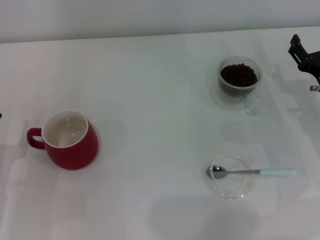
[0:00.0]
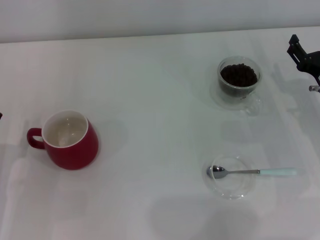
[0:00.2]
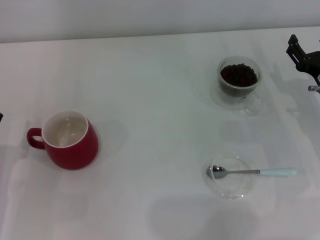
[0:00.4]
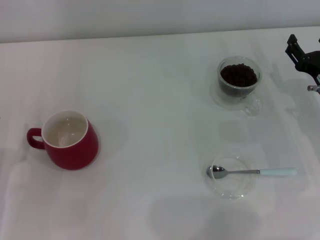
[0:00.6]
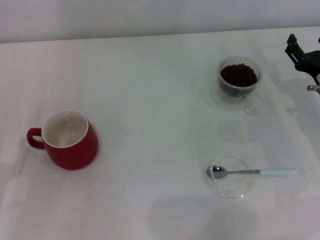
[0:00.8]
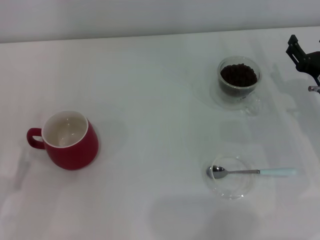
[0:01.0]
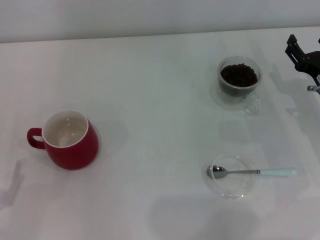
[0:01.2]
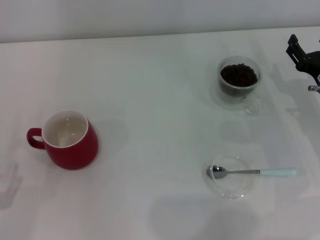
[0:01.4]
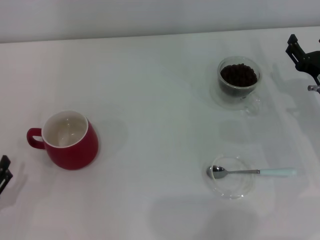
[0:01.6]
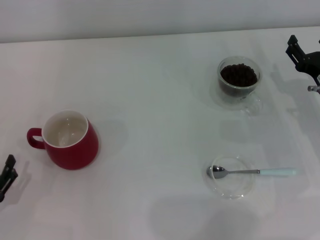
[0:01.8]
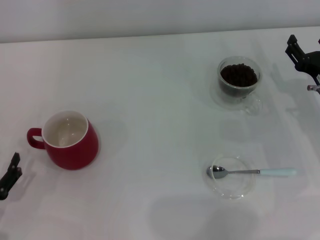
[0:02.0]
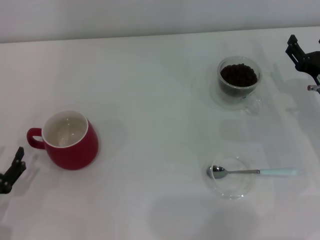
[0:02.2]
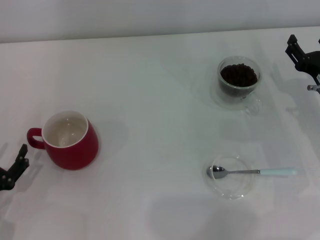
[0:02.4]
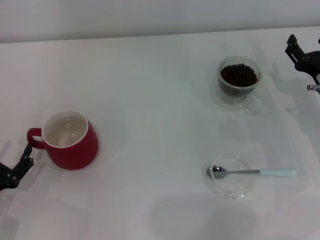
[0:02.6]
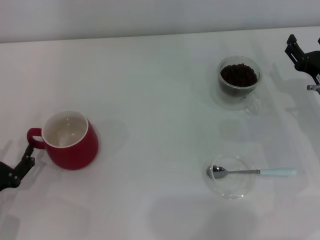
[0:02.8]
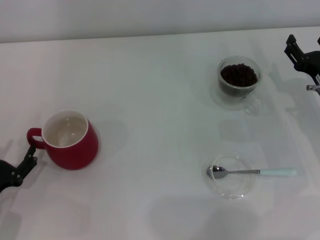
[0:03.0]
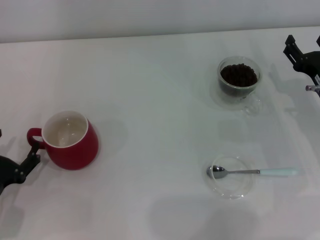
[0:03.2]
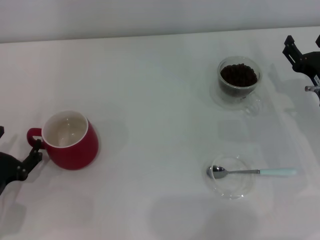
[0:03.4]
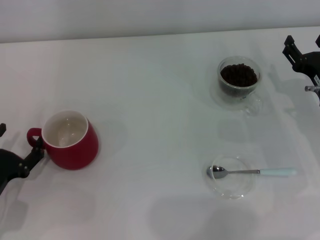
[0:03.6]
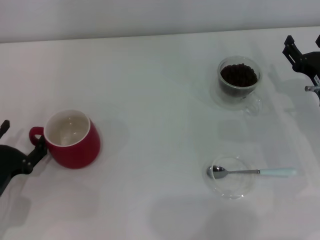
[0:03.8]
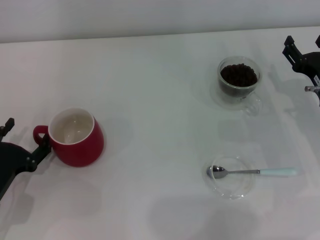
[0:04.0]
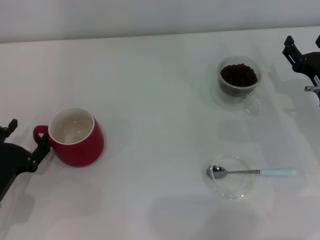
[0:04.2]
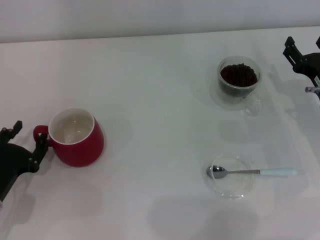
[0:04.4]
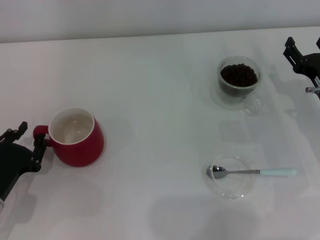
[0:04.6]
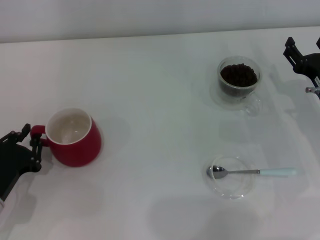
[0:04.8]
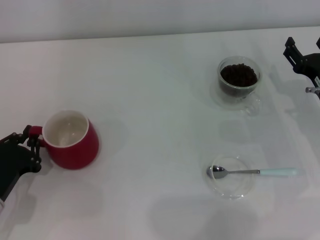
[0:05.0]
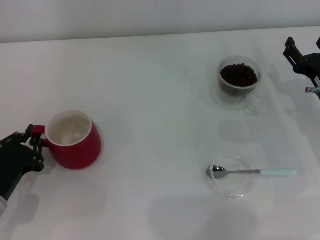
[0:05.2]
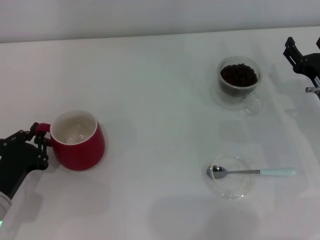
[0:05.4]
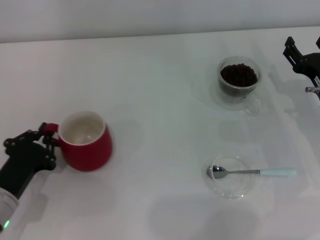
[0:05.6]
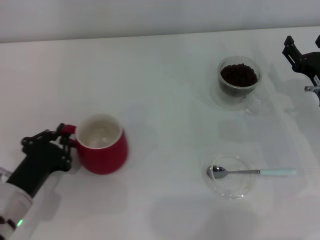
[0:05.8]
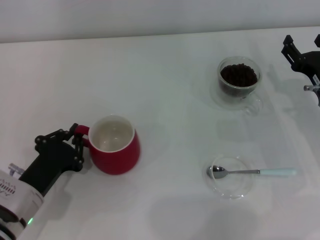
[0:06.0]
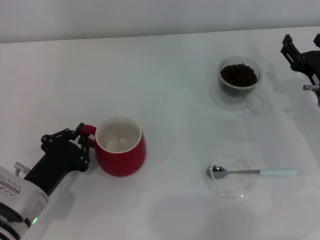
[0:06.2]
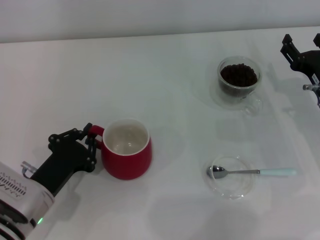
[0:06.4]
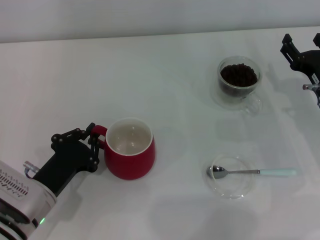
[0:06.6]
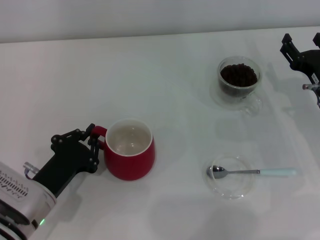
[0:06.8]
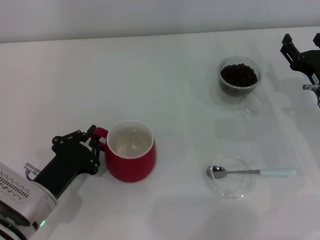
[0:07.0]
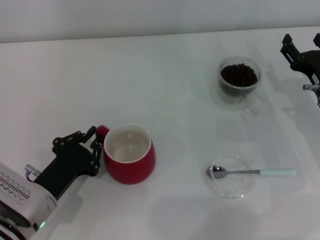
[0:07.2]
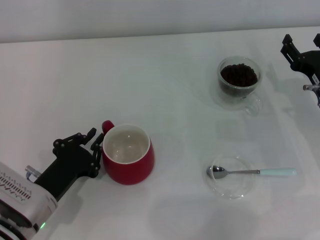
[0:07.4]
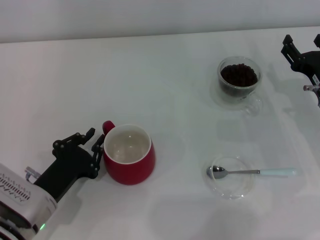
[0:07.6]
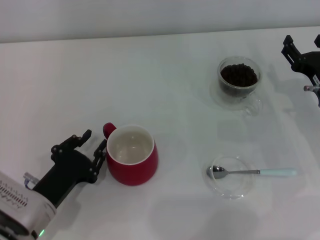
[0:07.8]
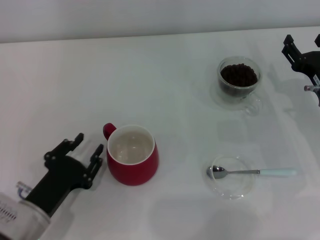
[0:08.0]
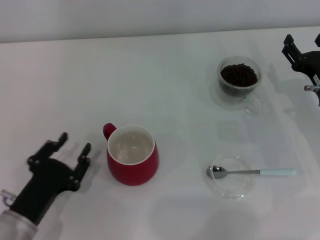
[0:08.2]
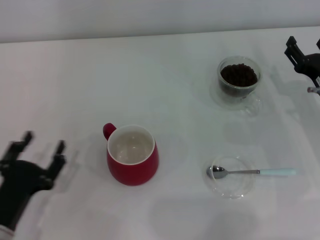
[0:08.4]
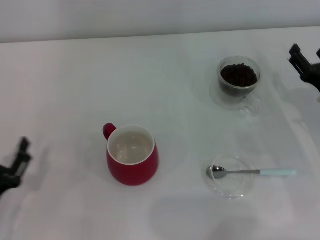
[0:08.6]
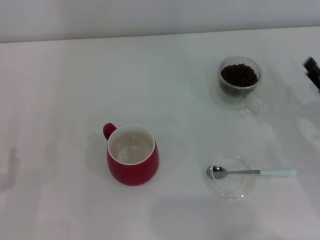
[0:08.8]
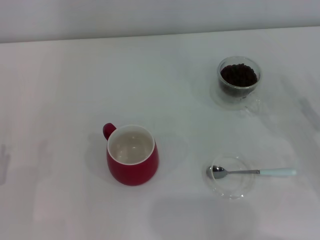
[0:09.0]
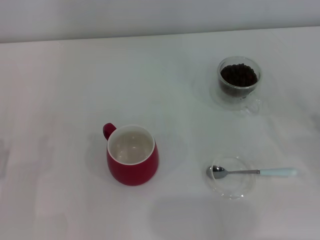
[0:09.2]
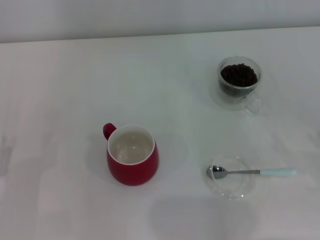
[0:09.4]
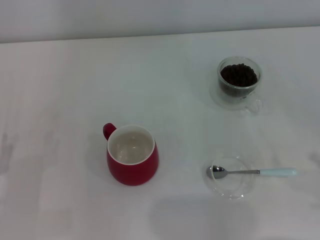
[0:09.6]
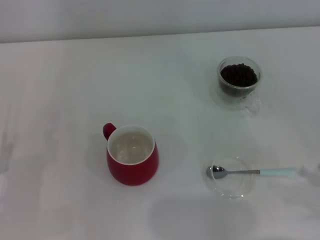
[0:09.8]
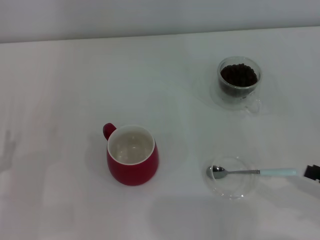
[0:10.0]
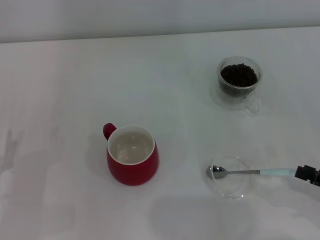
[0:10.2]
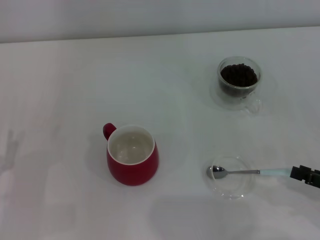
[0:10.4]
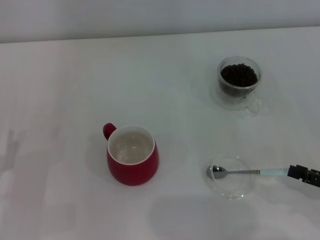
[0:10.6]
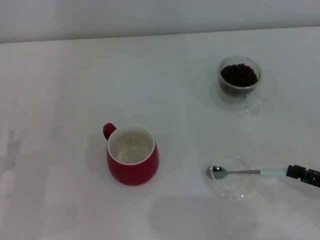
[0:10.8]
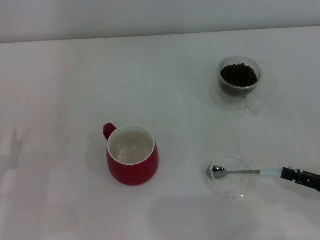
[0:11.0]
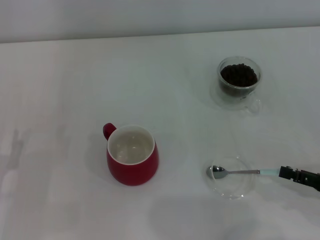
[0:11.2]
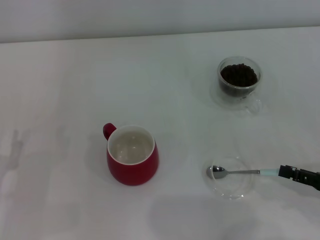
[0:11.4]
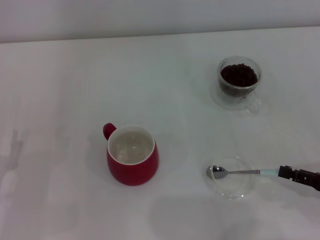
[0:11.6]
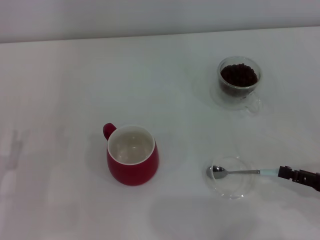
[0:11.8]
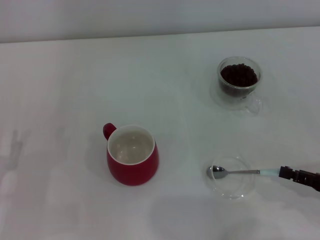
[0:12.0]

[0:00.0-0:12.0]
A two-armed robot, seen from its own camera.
Task of the whole recording: Use a blue spoon to take out the coffee beans from the glass and pour them into the red cup.
Step, 0:00.0 to 0:07.8: Move the cup to the center of view with the left gripper.
0:00.0 to 0:01.6: The left gripper goes some 5 cm backward.
0:01.6 to 0:03.0: There are only small adjustments of the grippers.
0:03.0 to 0:04.4: The grippers stay close to where they were, moving slightly.
0:04.4 to 0:06.0: The left gripper goes about 5 cm to the right, and closes its fingers.
0:06.0 to 0:07.6: The grippers move only a little.
0:07.6 to 0:09.0: The left gripper goes roughly 10 cm to the left and backward, and opens its fingers. Meanwhile the right gripper moves backward and to the right, approximately 10 cm.
0:09.0 to 0:10.4: The right gripper is displaced backward by approximately 5 cm.

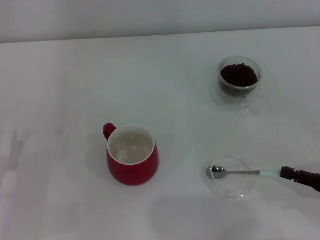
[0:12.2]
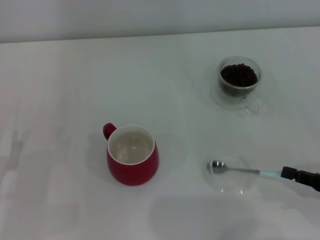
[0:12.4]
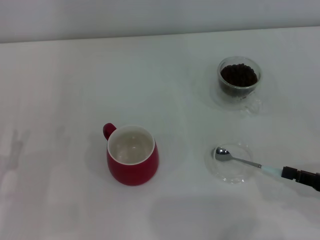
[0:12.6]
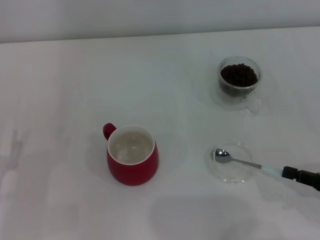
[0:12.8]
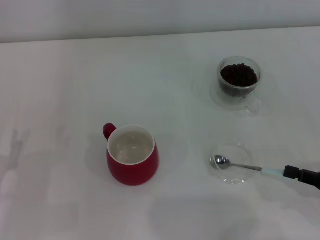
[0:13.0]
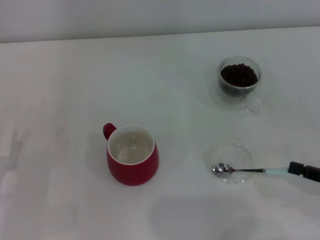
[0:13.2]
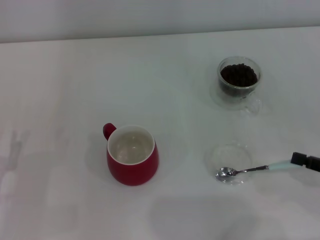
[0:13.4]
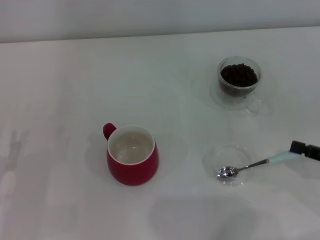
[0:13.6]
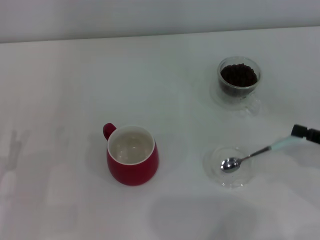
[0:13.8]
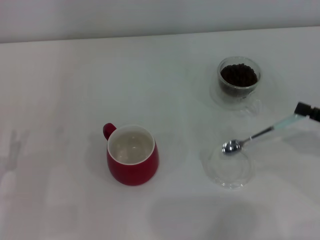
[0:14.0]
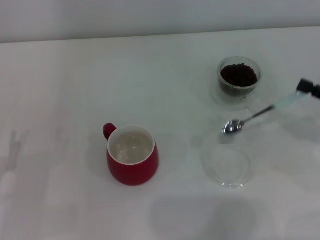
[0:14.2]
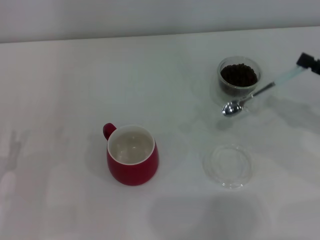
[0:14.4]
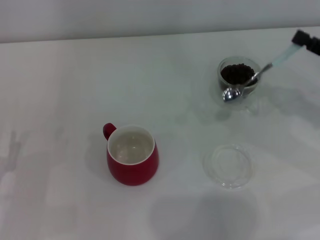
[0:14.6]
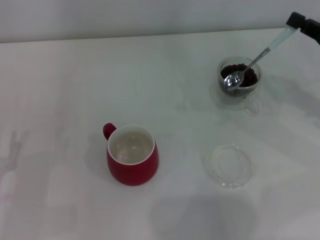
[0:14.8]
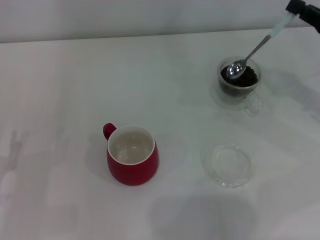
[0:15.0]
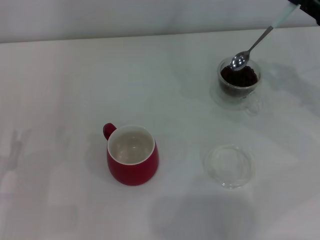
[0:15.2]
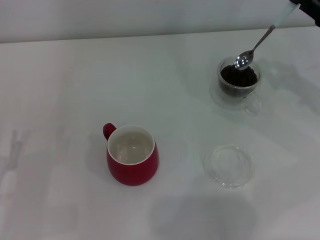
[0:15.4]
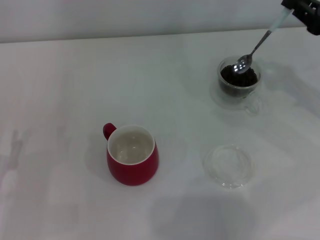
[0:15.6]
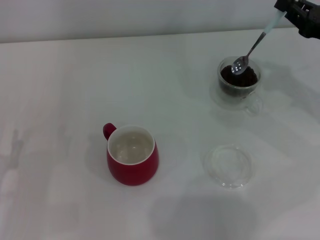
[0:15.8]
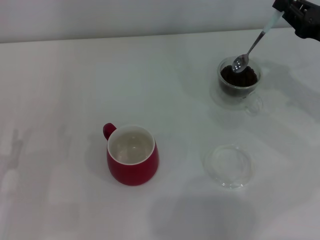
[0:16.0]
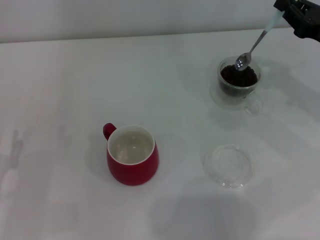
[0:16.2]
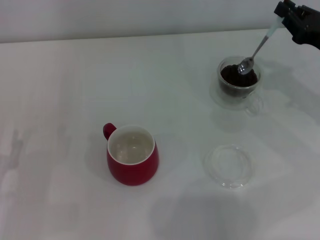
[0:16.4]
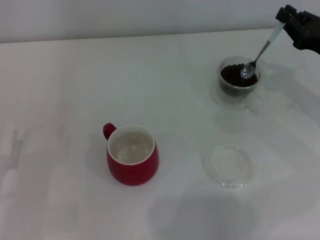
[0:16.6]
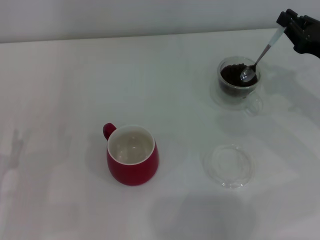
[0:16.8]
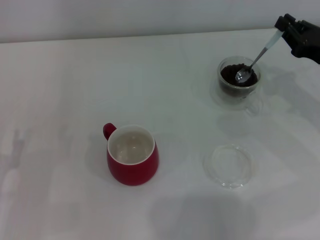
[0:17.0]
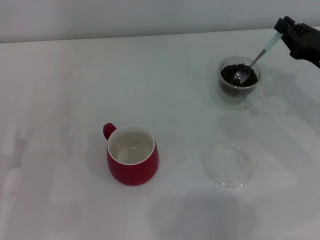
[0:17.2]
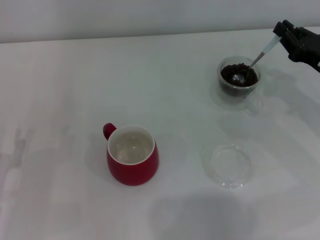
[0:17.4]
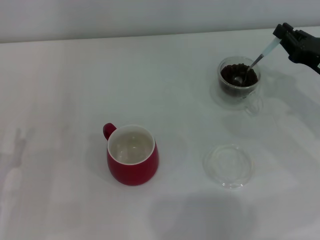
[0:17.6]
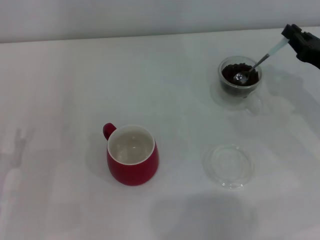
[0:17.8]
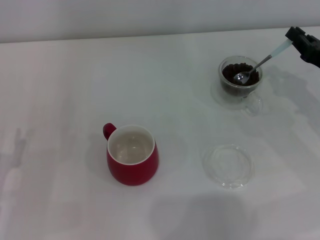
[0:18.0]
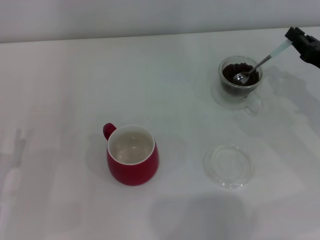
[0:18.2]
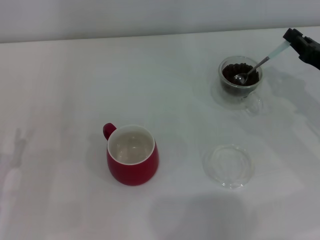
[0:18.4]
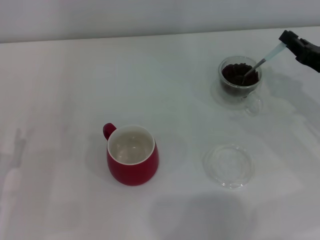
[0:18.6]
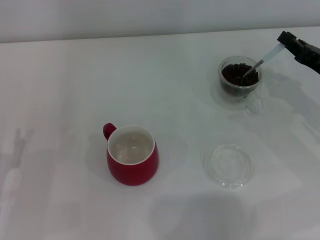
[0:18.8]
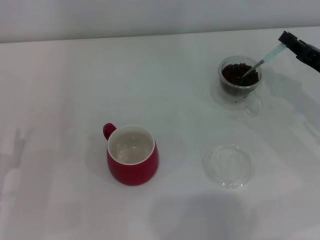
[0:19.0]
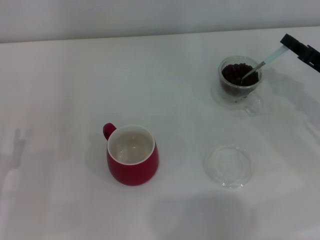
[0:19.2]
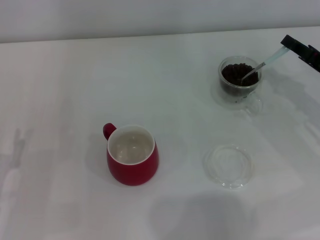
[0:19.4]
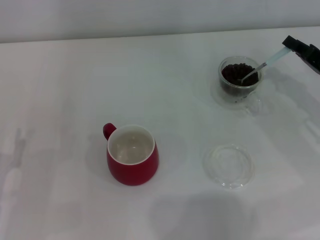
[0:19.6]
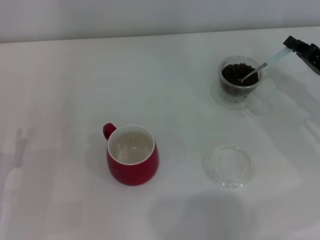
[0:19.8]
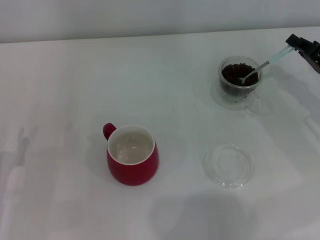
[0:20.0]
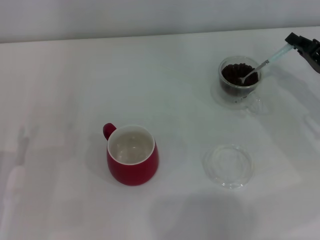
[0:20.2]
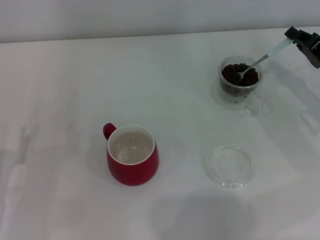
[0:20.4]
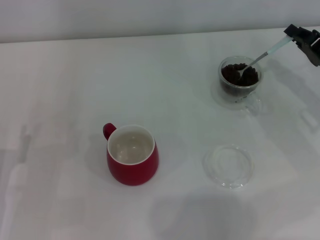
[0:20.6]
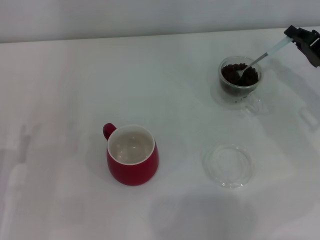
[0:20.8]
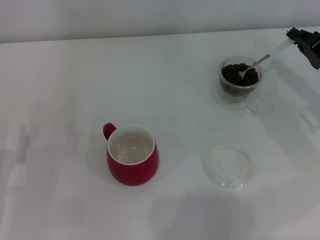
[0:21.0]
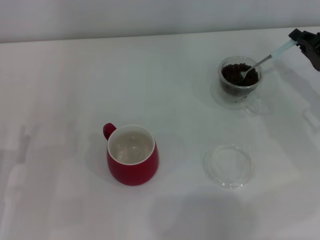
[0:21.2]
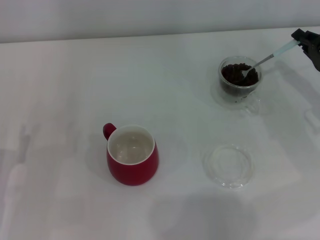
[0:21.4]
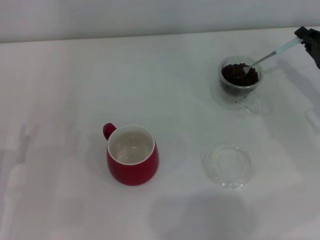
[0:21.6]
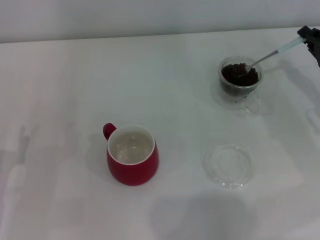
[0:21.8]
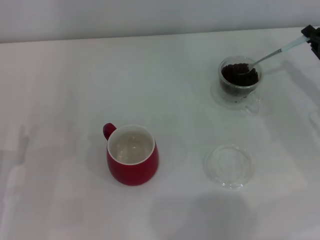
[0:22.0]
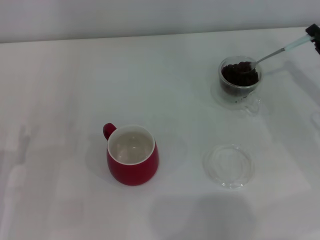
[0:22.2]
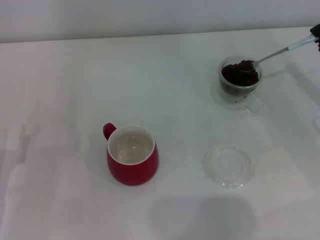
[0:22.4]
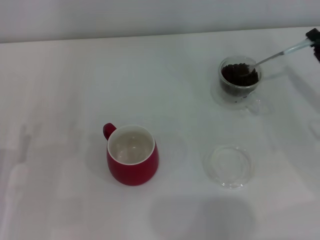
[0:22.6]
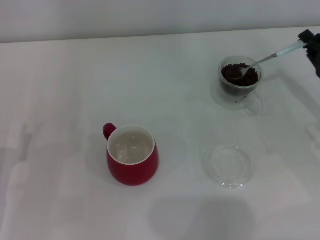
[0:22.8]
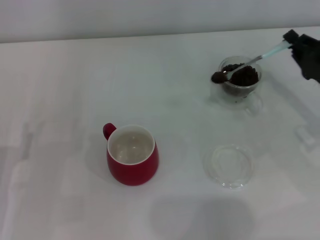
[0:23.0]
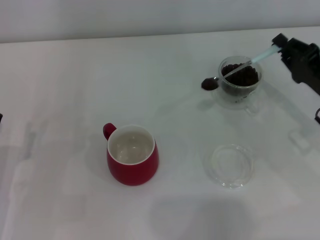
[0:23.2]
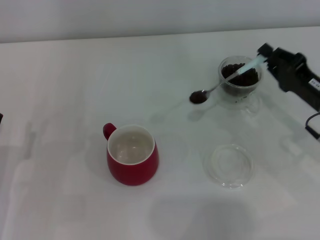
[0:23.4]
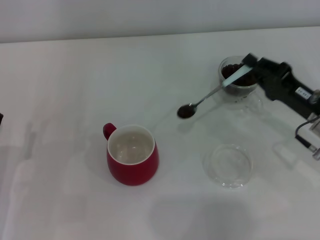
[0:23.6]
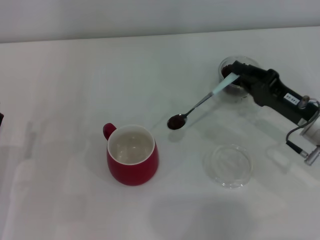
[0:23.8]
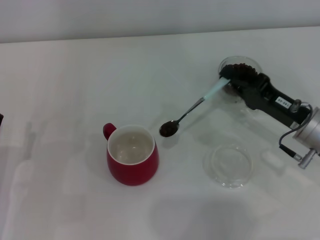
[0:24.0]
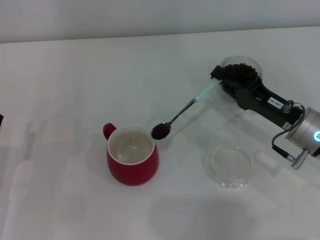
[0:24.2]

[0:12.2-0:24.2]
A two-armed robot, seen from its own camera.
Task of the whole recording: Use a blue spoon to take out the coffee beans from the glass and pour them into the red cup.
0:12.2 to 0:13.8: The right gripper ends up roughly 5 cm from where it was.
0:13.8 to 0:15.2: The right gripper shifts some 15 cm forward and upward.
0:15.2 to 0:16.6: There are only small adjustments of the grippers.
0:16.6 to 0:18.2: The grippers move only a little.
0:19.8 to 0:21.2: The grippers move only a little.
0:21.2 to 0:22.6: The grippers move only a little.
0:22.6 to 0:24.2: The right gripper is displaced to the left by roughly 10 cm.
